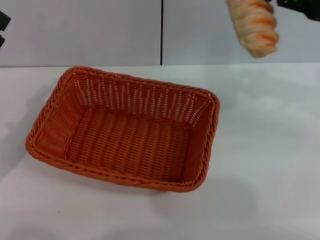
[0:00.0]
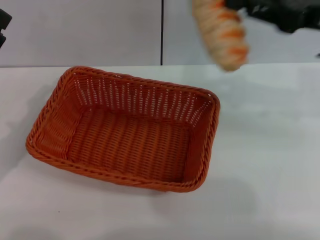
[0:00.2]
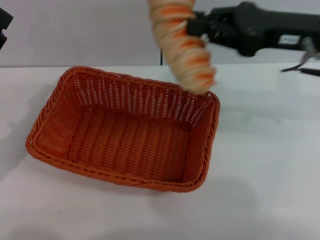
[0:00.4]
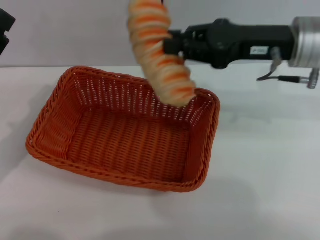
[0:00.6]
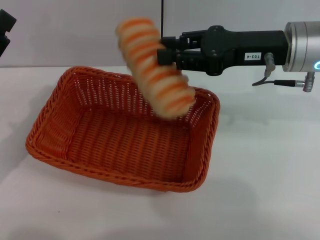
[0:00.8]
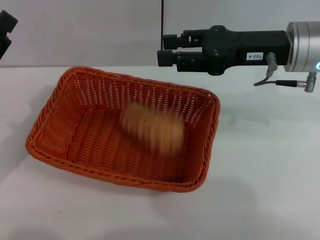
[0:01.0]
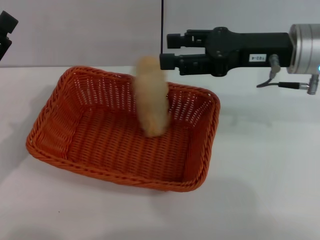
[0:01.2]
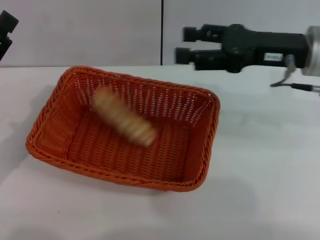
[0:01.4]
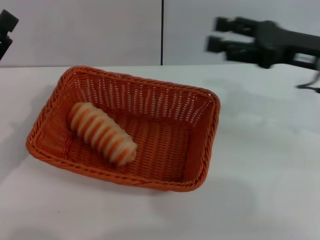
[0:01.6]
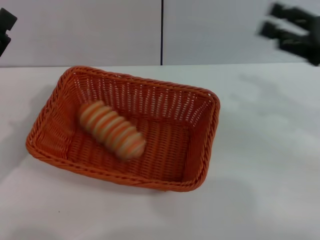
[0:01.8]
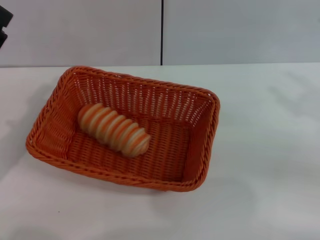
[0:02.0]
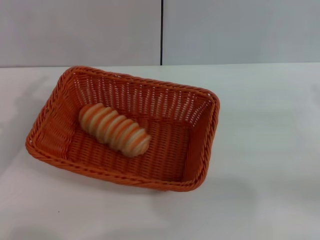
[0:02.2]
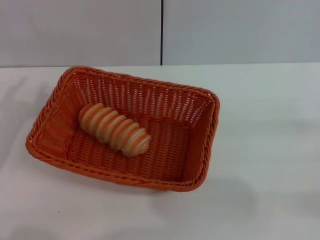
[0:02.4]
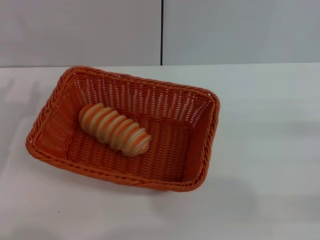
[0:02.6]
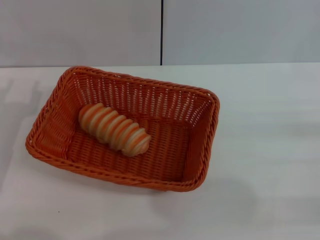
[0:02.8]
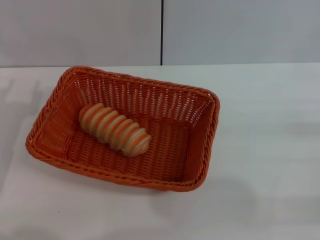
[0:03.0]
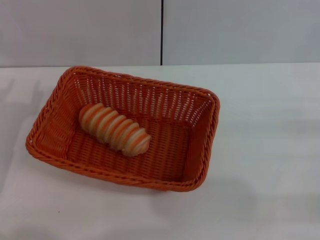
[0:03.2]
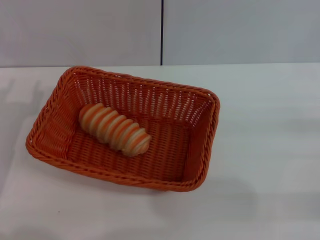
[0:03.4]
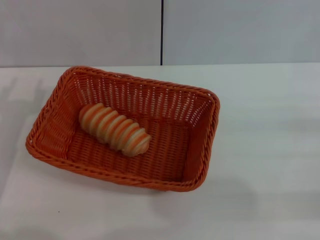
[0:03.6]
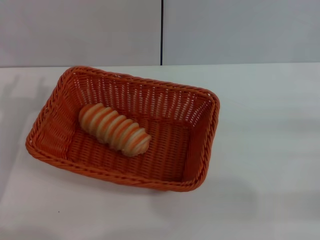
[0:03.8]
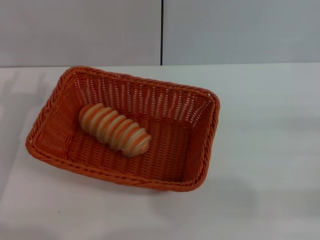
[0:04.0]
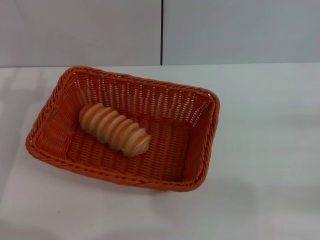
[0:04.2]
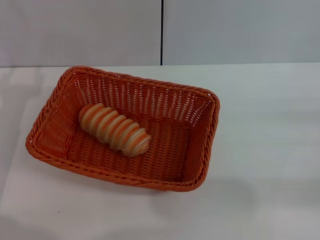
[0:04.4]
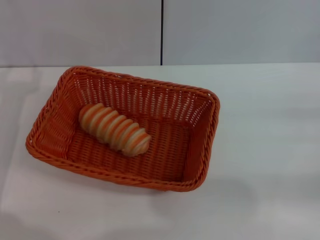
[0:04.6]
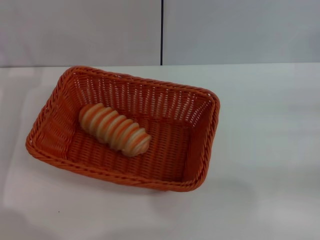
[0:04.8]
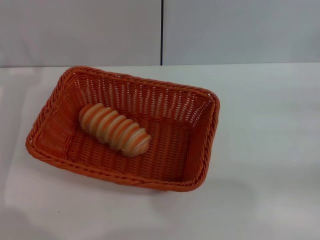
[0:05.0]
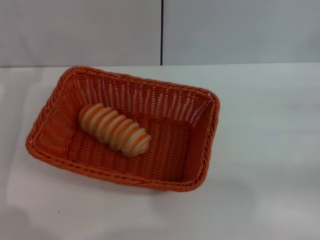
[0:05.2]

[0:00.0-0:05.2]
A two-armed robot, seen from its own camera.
Step, 0:00.0 to 0:01.6: Place the long bread into the light basket with the right gripper.
0:00.0 to 0:01.8: The right gripper heads downward, covering about 5 cm, goes to the left and returns, approximately 10 cm each way, and opens its fingers.
0:01.8 to 0:03.4: The right gripper is displaced backward, to the right and downward by roughly 15 cm.
